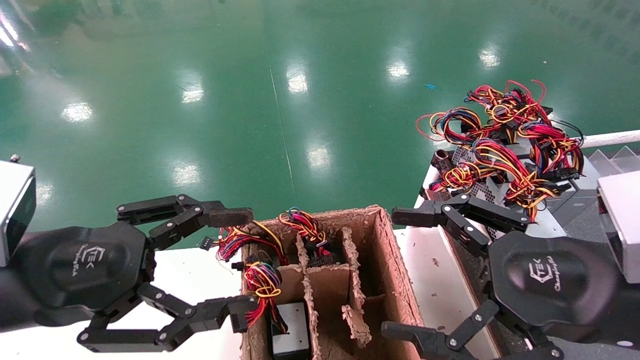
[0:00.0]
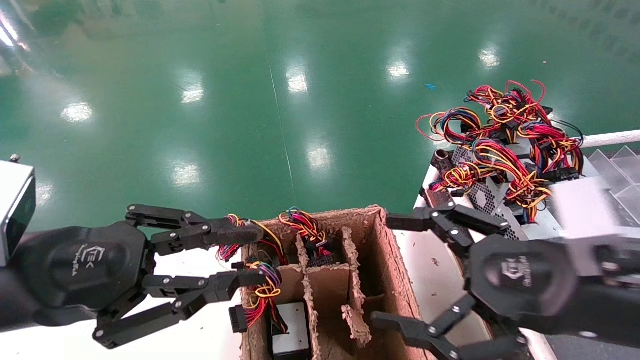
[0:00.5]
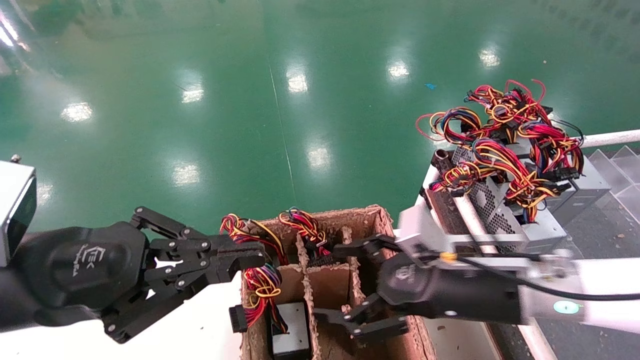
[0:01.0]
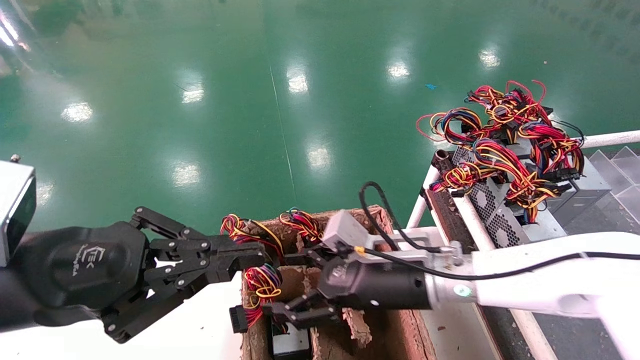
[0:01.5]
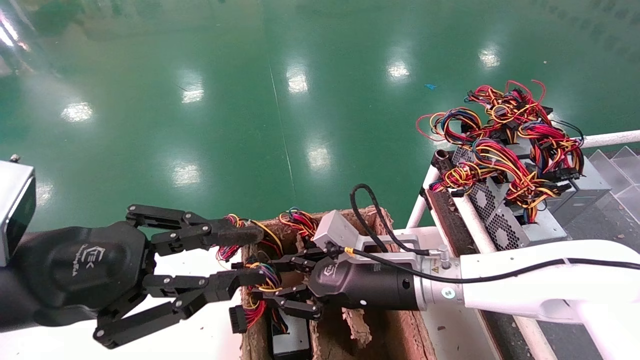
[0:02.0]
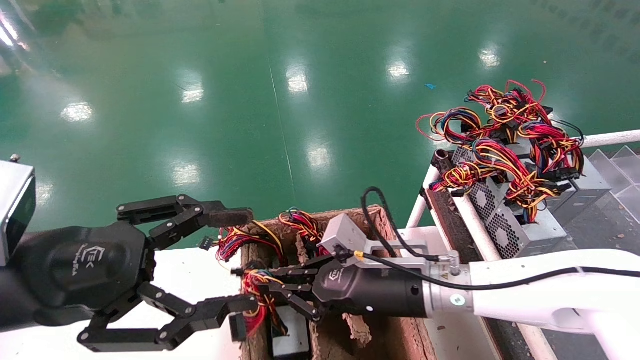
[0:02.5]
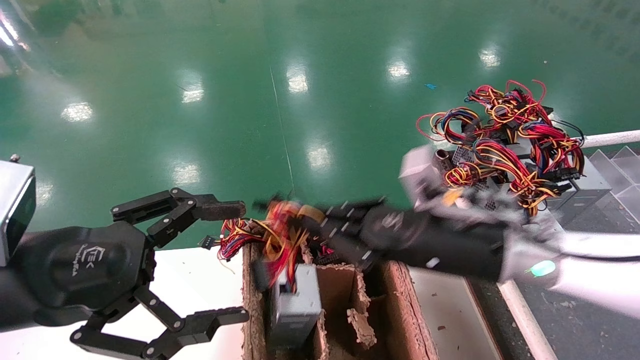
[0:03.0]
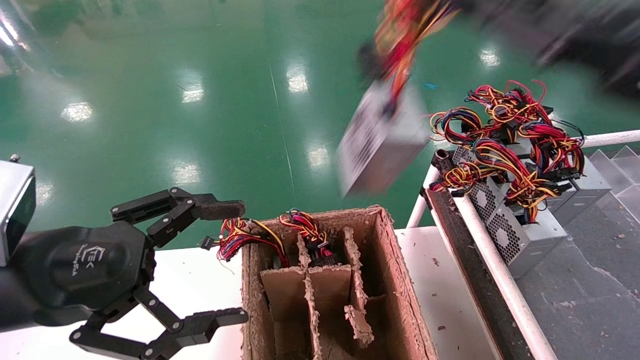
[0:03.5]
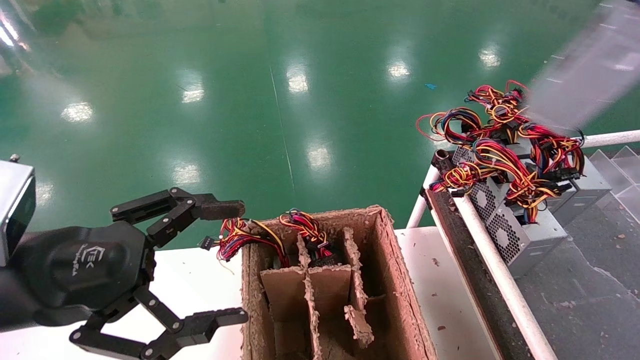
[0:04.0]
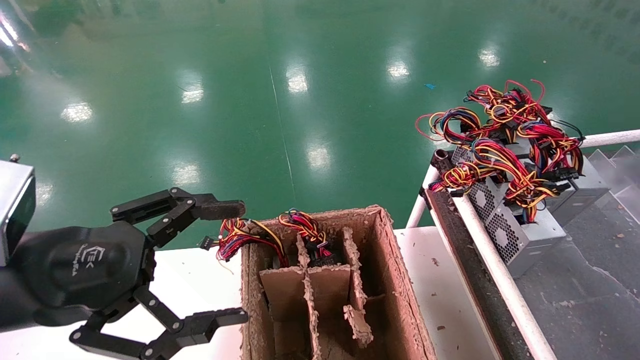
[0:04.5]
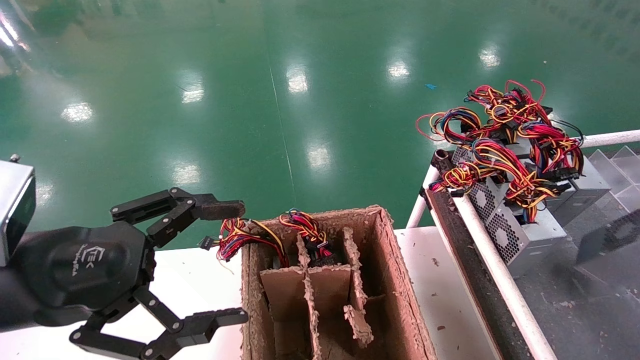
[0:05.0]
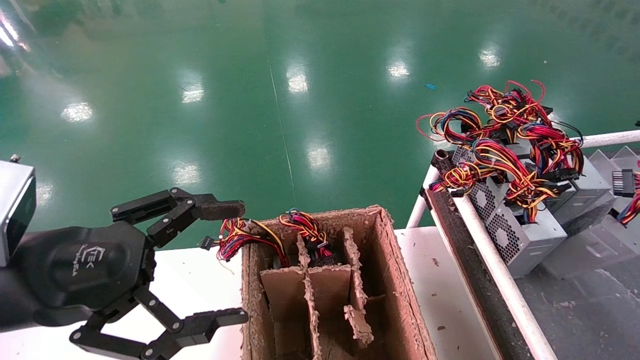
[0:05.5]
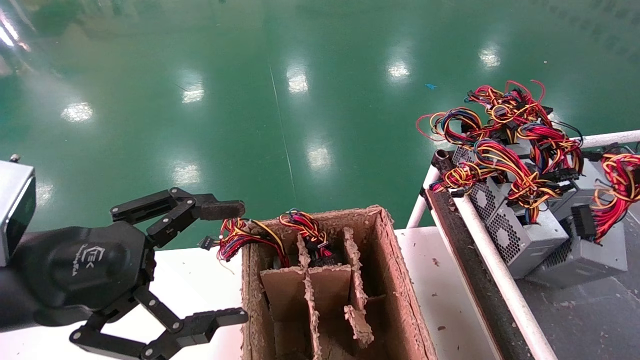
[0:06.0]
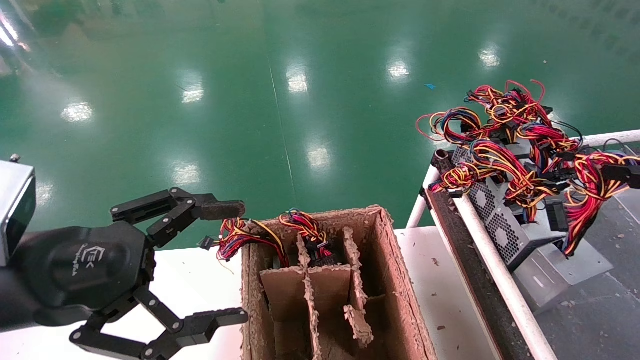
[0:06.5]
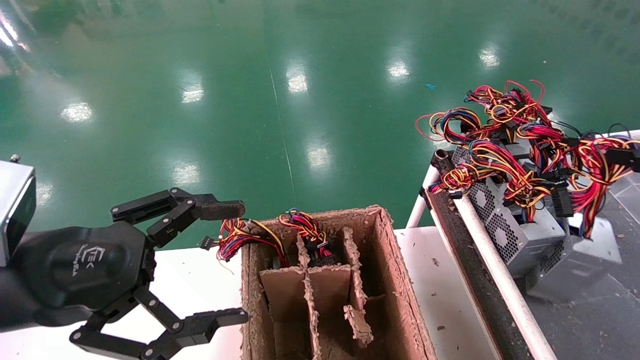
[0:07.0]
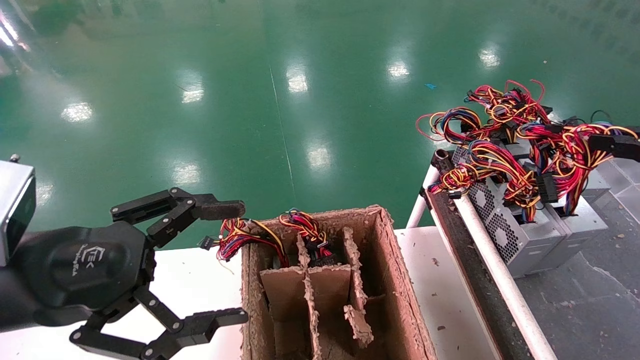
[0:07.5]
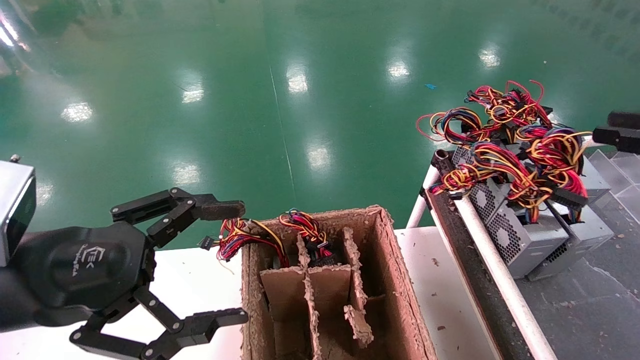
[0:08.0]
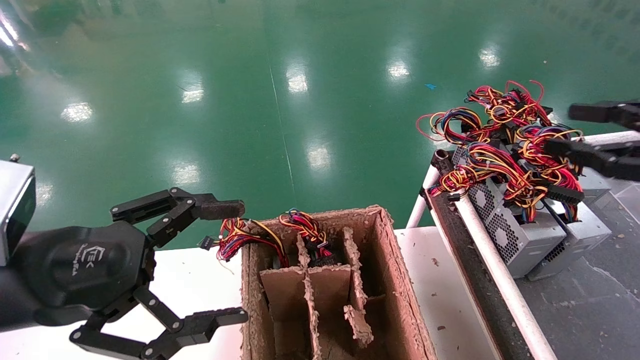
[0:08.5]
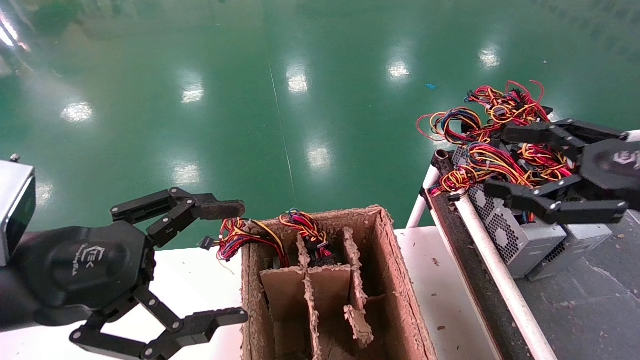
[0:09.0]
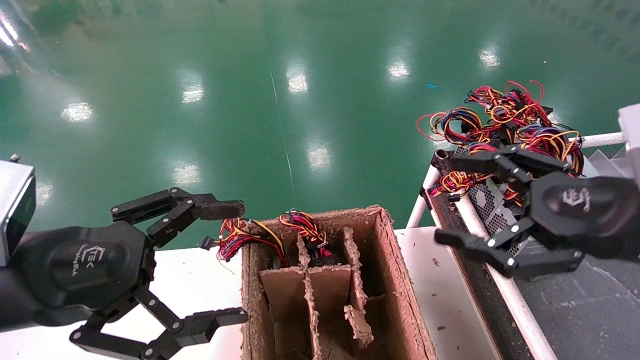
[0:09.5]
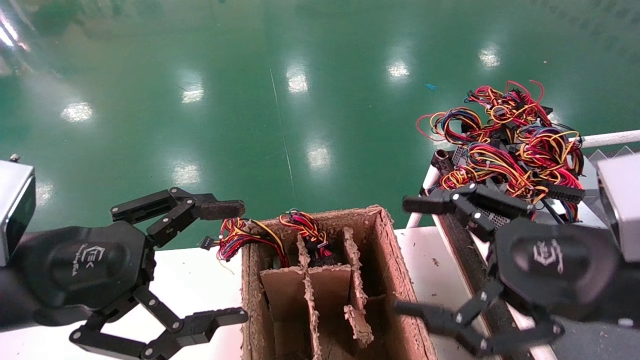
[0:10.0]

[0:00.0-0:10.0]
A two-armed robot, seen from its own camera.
Step, 0:01.0 to 0:02.0: Grab and lift the power supply from the large box.
Step, 0:02.5 to 0:08.0: Place the power supply on the operating table.
0:00.0 to 0:02.0: The left gripper closes up. The right gripper is displaced forward, to the left and downward by some 25 cm, and closes its fingers.
0:02.0 to 0:04.0: The left gripper opens its fingers; the right gripper travels to the right, upward and backward by some 50 cm, and closes its fingers.
0:04.0 to 0:06.0: The right gripper shifts roughly 15 cm downward.
0:06.0 to 0:08.0: The right gripper changes place by some 5 cm.
0:08.0 to 0:10.0: The right gripper goes roughly 20 cm to the left, and opens its fingers.

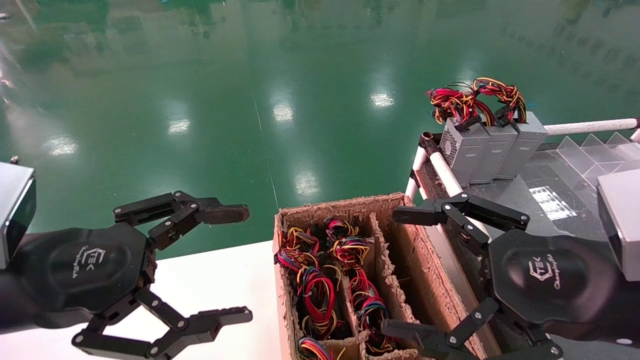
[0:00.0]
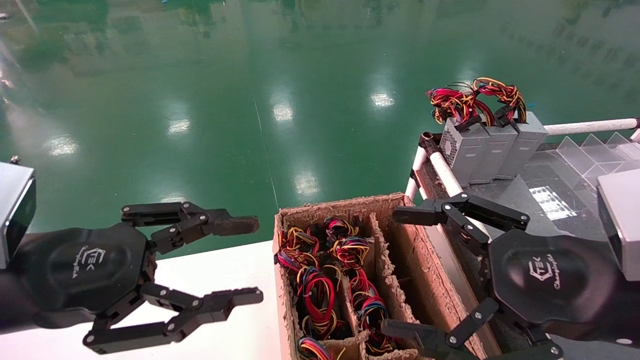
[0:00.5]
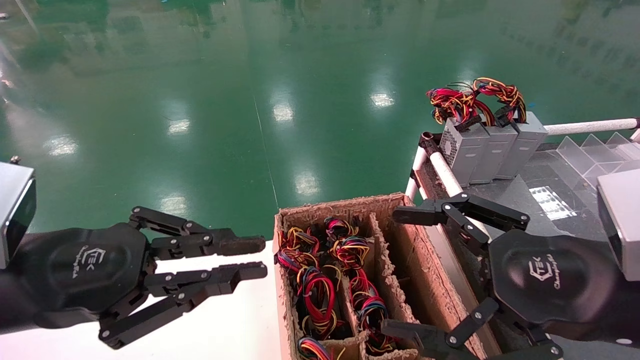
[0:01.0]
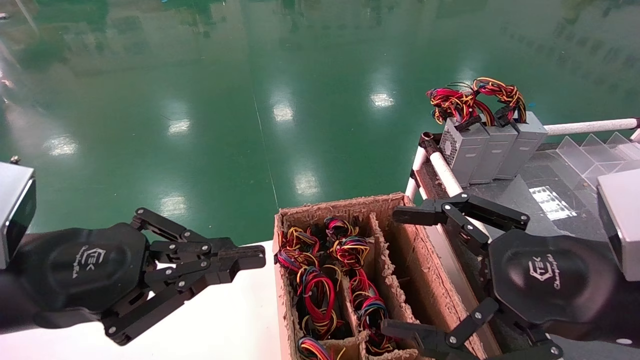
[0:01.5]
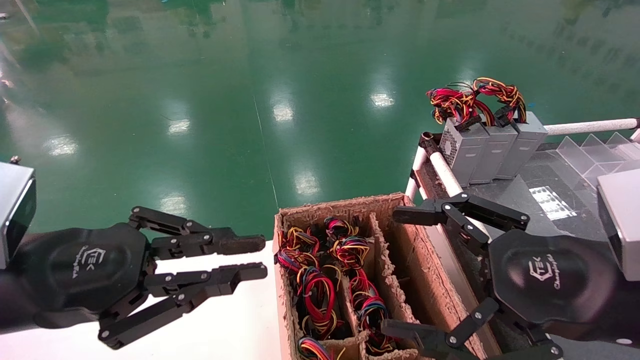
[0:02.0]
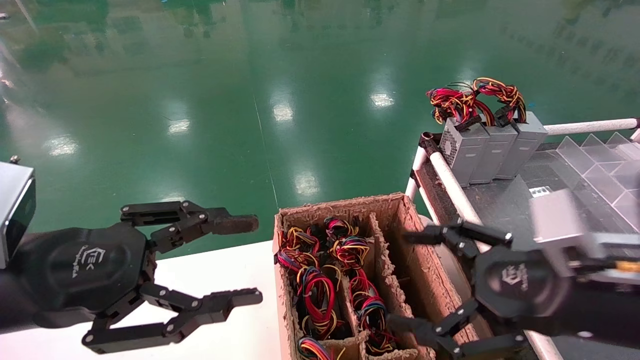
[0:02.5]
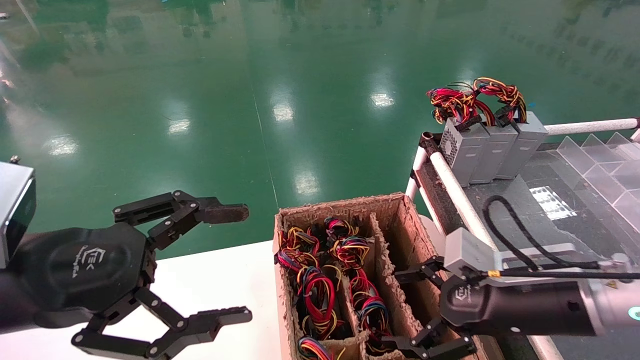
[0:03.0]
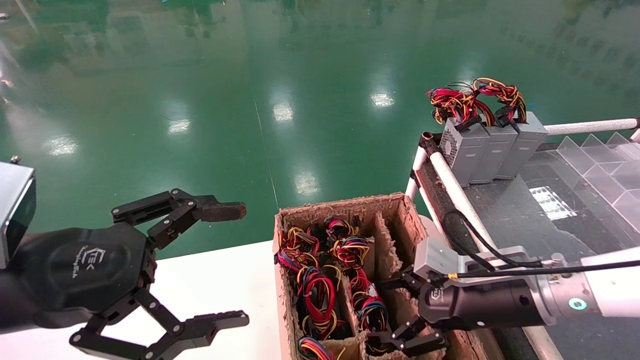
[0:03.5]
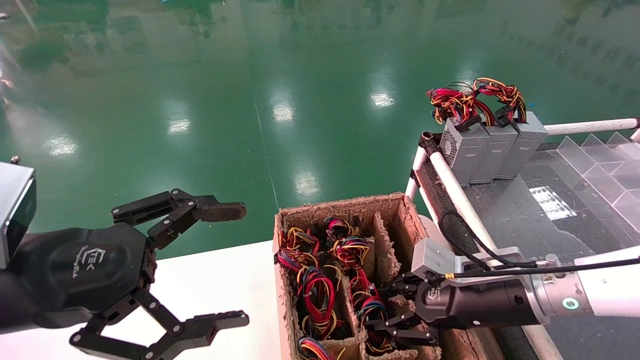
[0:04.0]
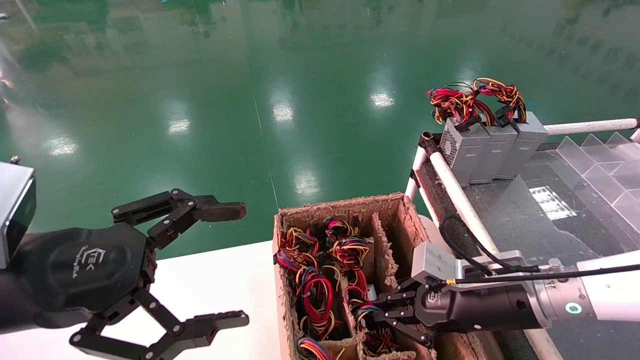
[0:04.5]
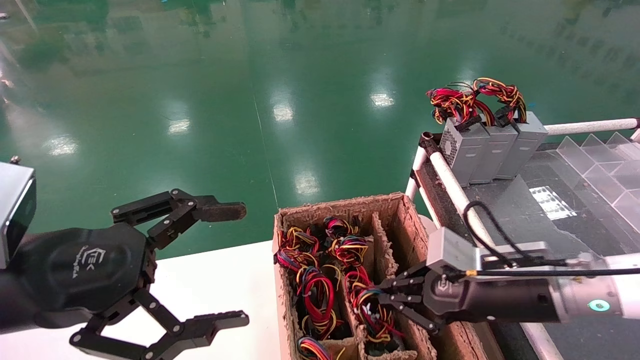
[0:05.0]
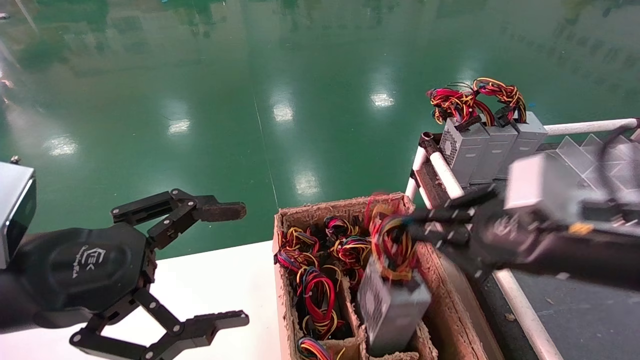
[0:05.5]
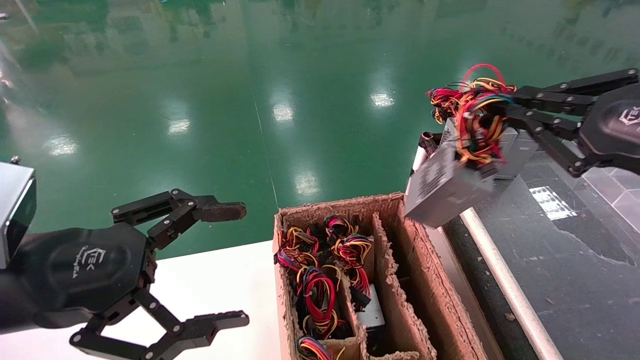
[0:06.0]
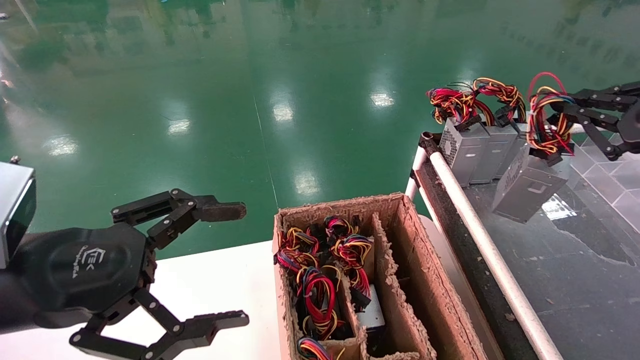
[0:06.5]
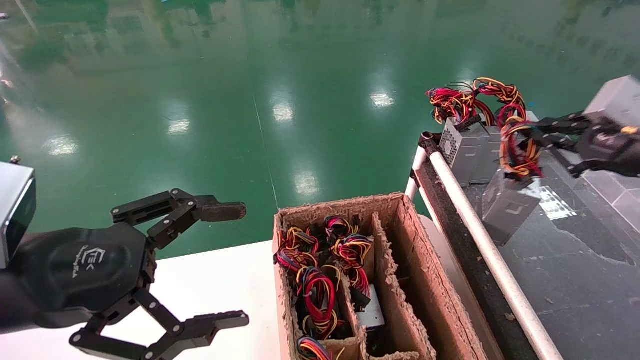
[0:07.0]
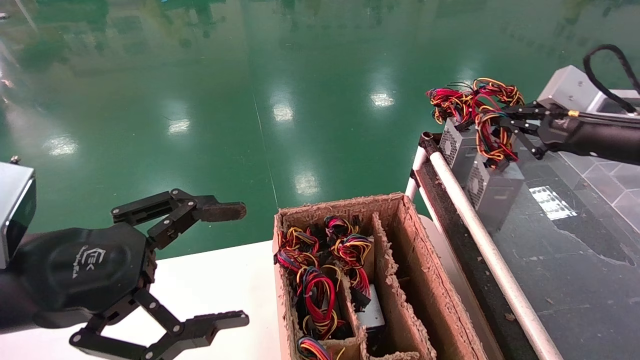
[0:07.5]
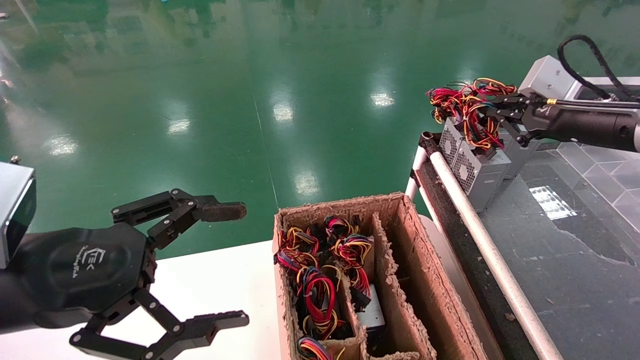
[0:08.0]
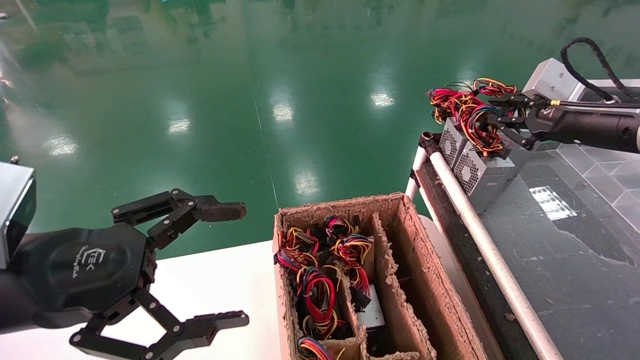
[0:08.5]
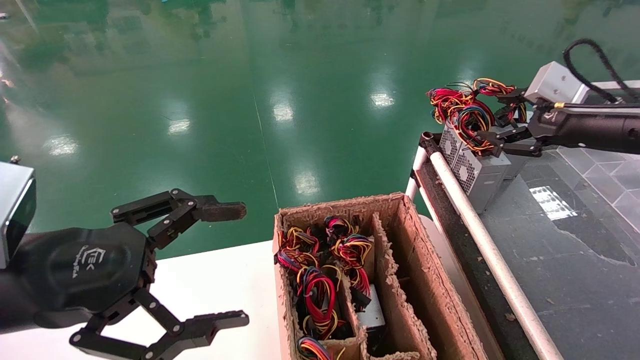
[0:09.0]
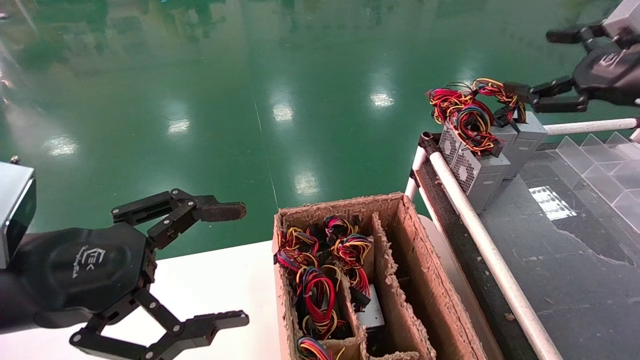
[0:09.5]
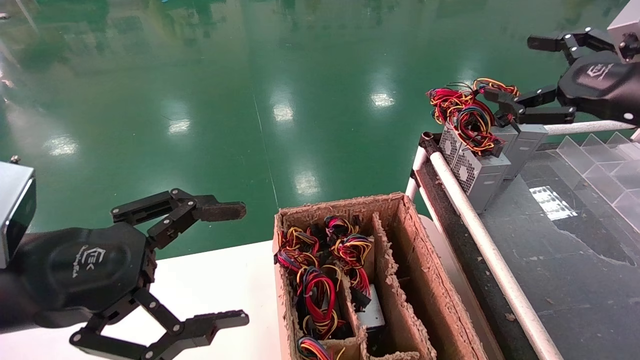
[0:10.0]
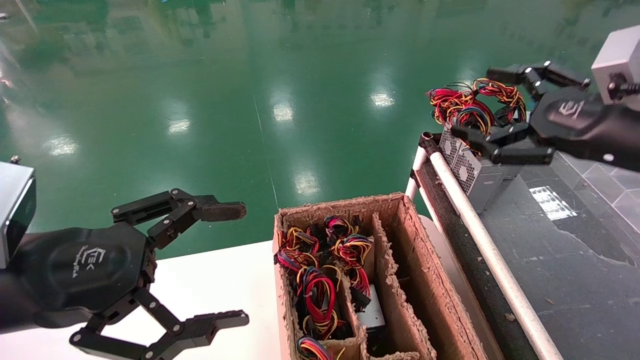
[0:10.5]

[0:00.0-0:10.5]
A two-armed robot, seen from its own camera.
Step, 0:01.5 to 0:04.5: Grab and lift the power supply from the large box.
Step, 0:05.0 to 0:08.0: Place the power supply on the operating table.
0:00.0 to 0:02.0: The left gripper closes up.
0:02.0 to 0:04.0: The left gripper opens its fingers. Meanwhile the right gripper goes some 15 cm forward and downward, and closes.
0:04.0 to 0:06.5: The right gripper travels upward and to the right by approximately 25 cm, and closes.
0:06.5 to 0:08.5: The right gripper shifts about 10 cm forward.
0:08.5 to 0:10.5: The right gripper goes some 10 cm backward, and opens up.
